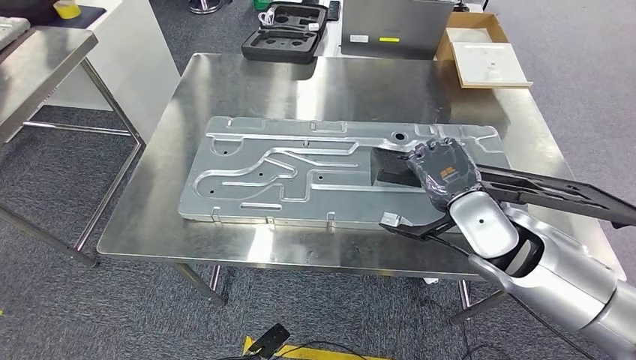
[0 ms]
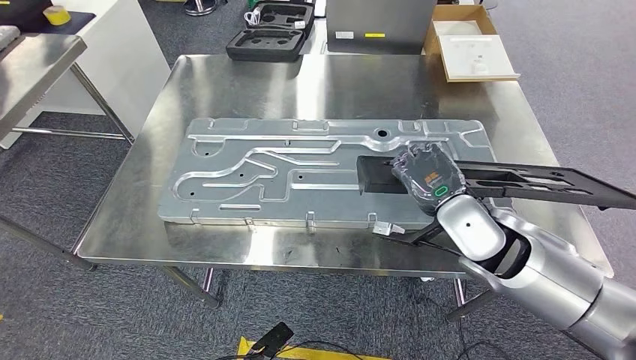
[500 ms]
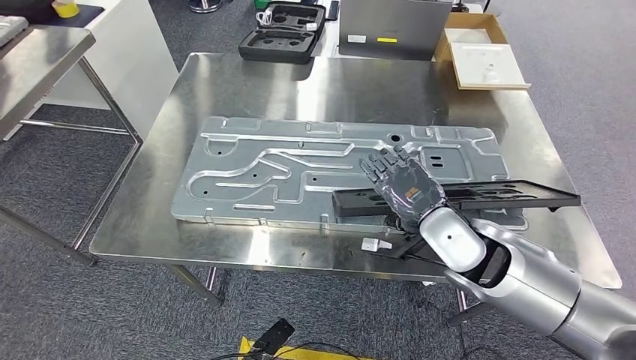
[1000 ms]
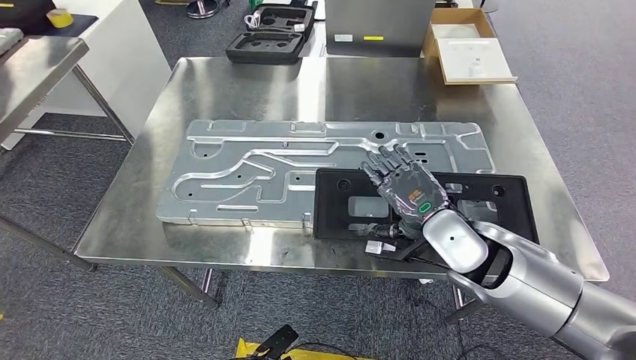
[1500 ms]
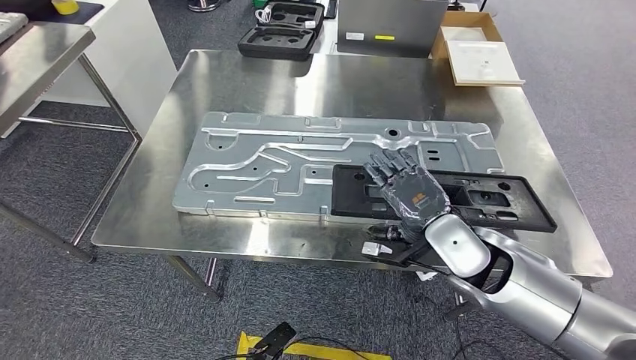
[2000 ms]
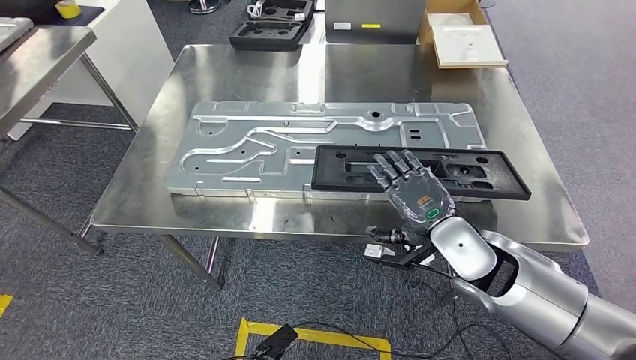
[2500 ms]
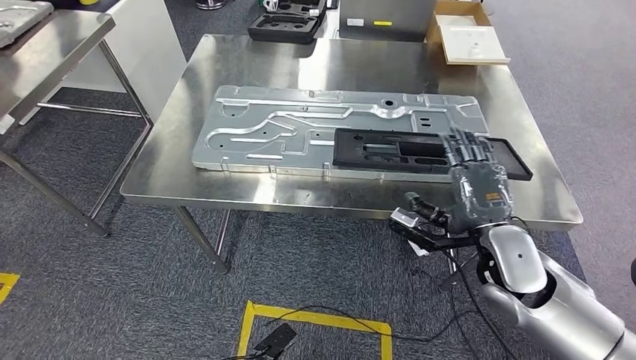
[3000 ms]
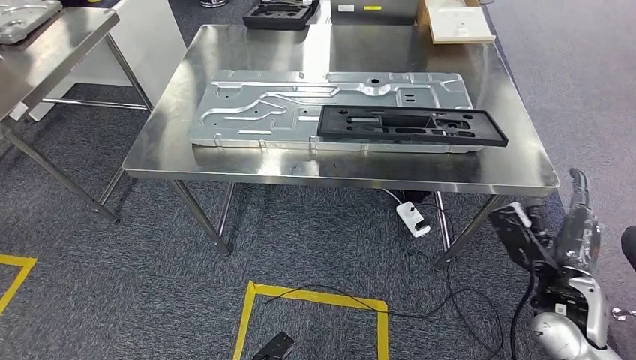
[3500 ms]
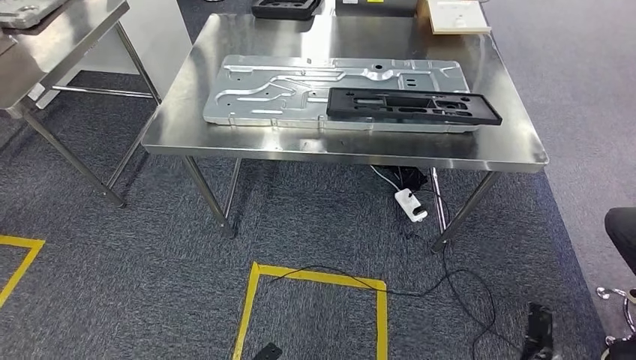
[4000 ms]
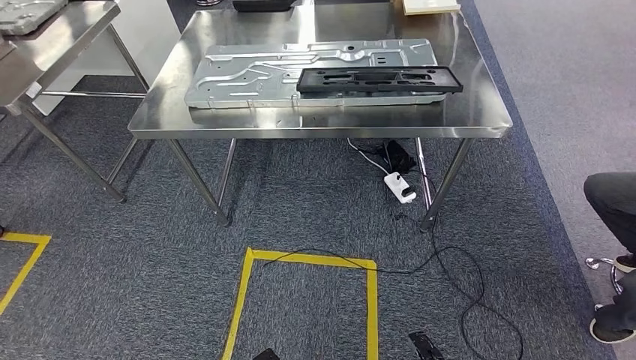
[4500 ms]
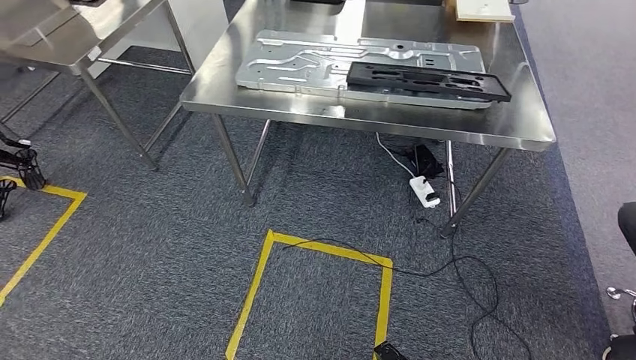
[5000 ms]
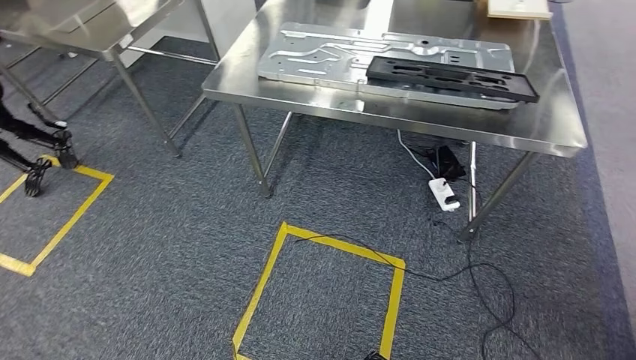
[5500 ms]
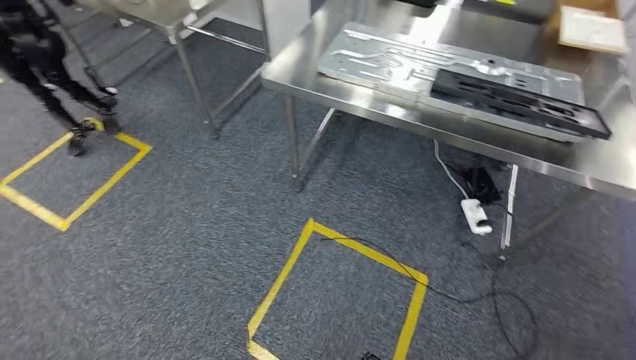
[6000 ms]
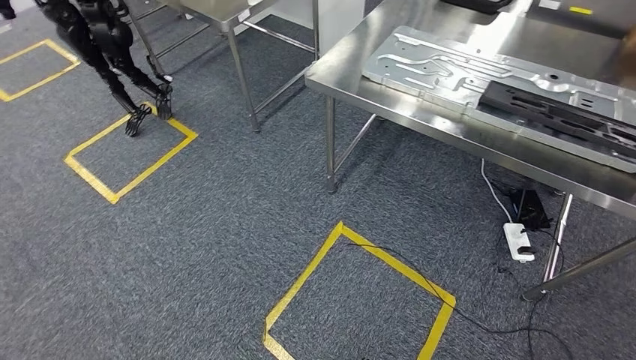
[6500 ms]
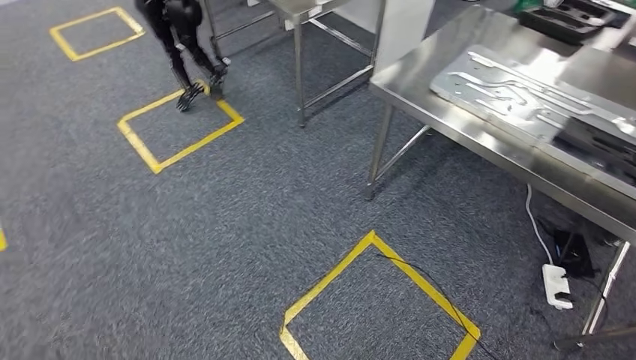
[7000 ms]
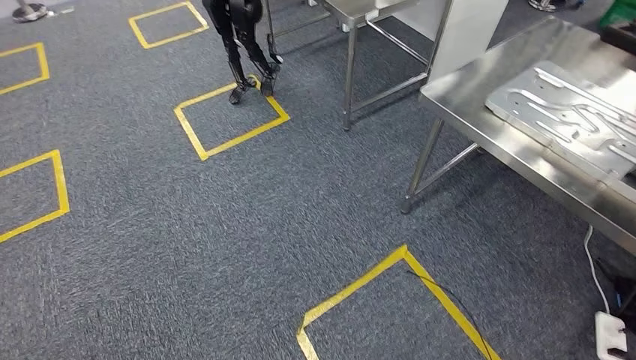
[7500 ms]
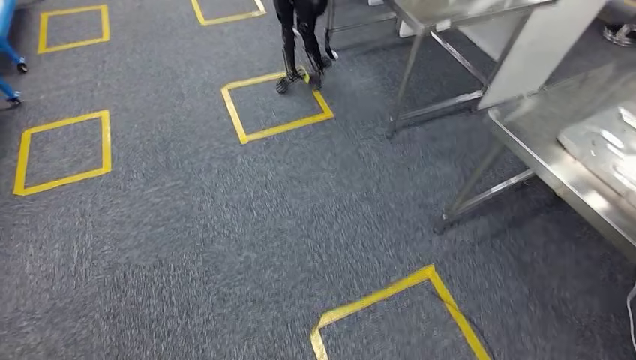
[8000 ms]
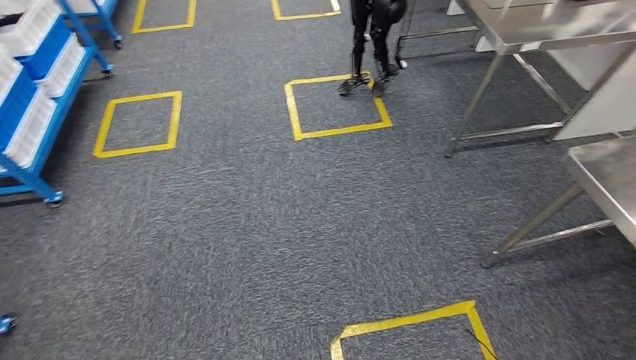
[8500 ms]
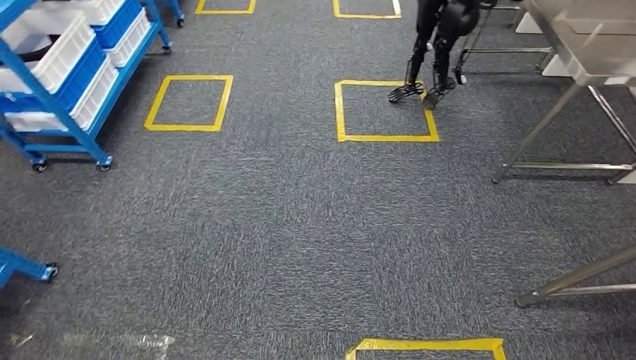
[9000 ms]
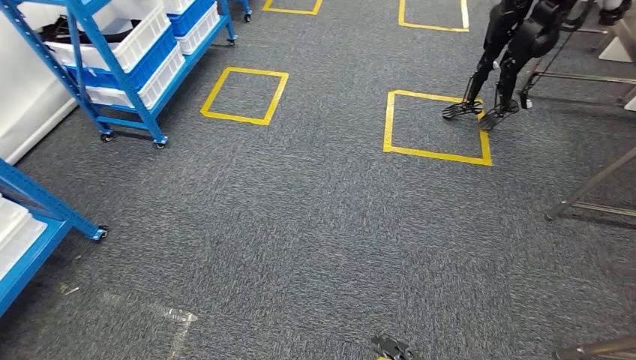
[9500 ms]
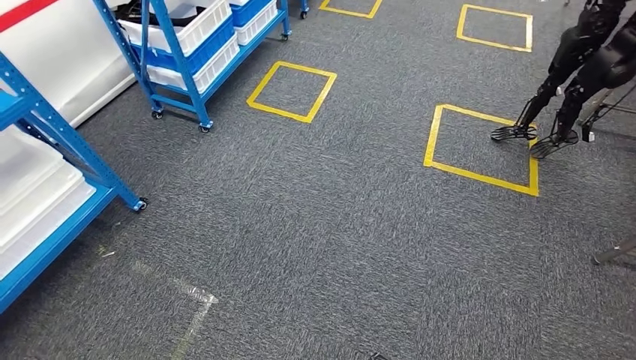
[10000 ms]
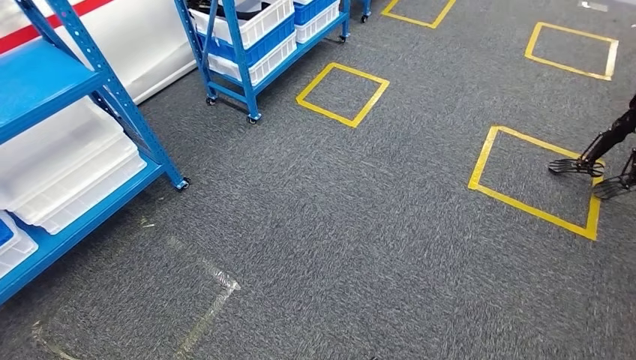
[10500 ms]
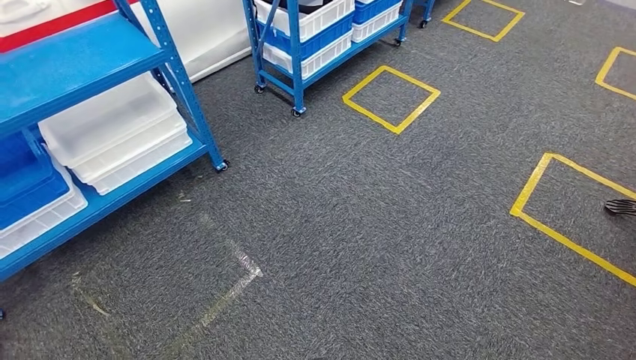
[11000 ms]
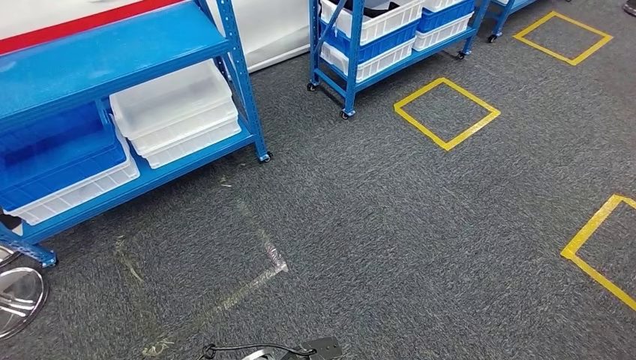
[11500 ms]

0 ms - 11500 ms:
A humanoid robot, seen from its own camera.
Step, 0 ms - 3500 ms: Insert the large material into the corresponding slot on the workbench.

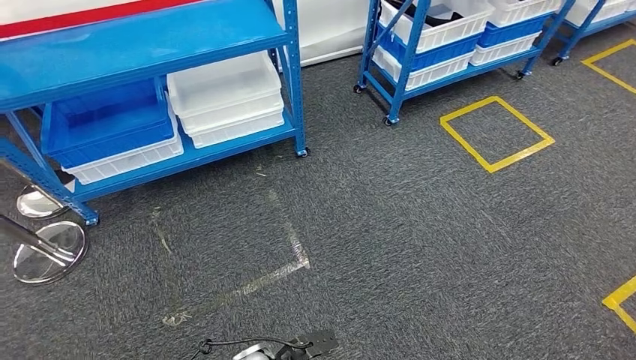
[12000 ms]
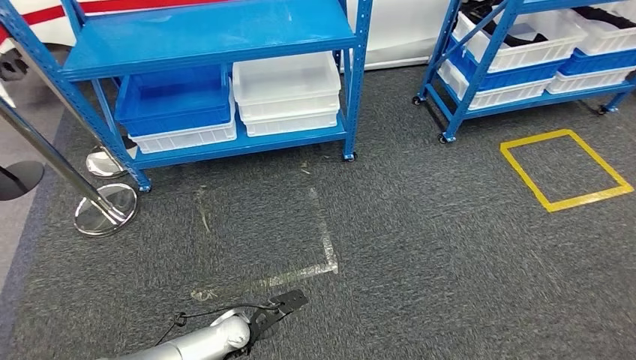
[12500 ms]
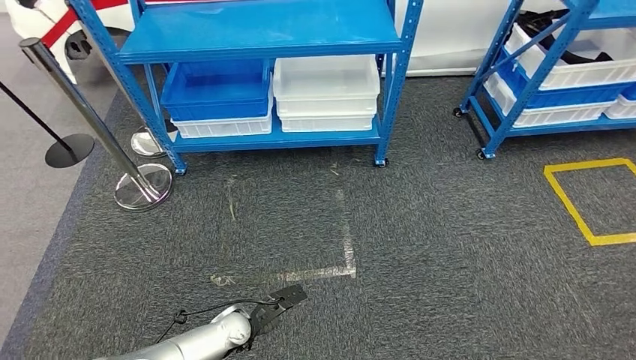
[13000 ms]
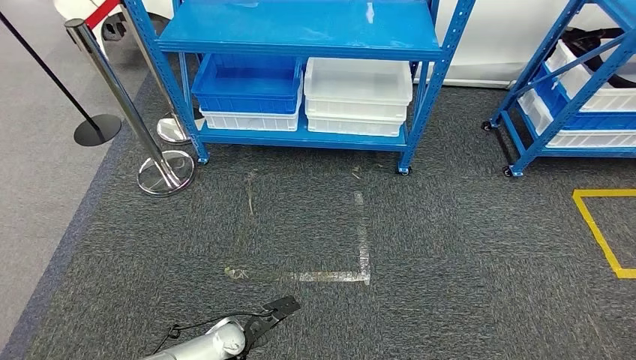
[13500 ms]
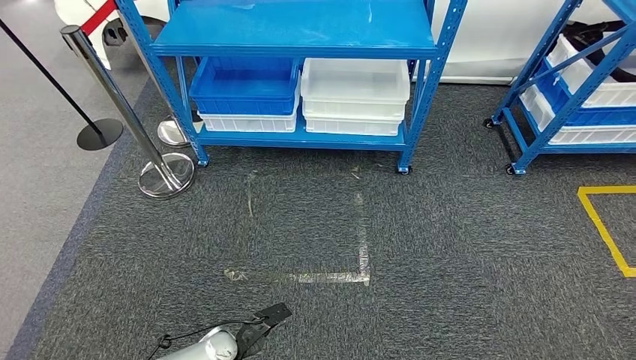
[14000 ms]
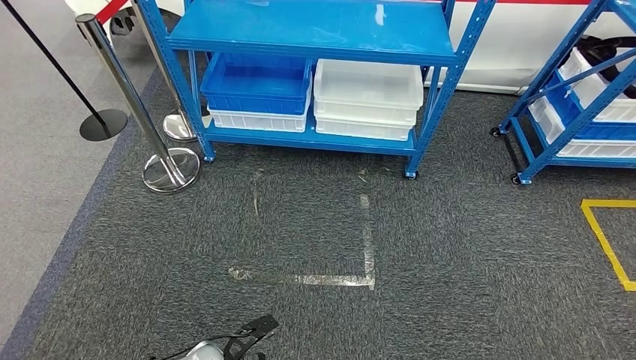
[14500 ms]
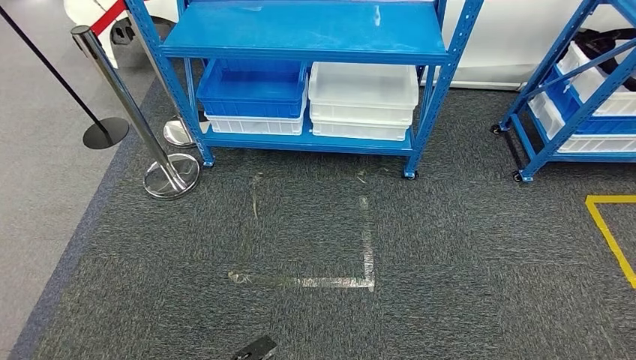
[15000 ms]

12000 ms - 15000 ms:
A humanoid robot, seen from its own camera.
Step, 12000 ms - 15000 ms: Return to the initial position at the shelf.
